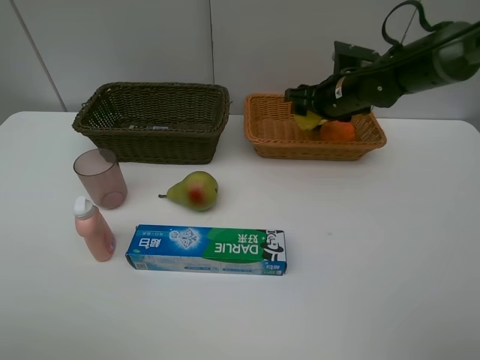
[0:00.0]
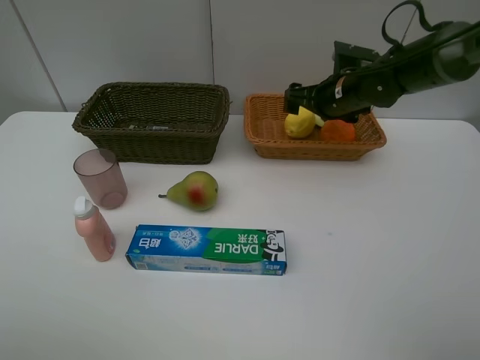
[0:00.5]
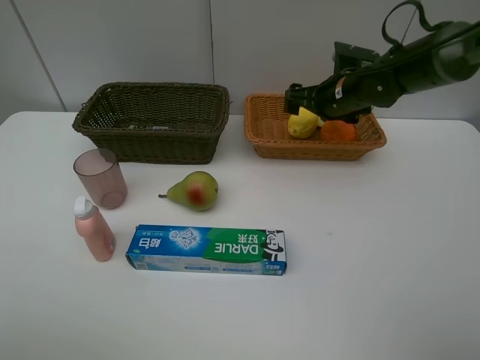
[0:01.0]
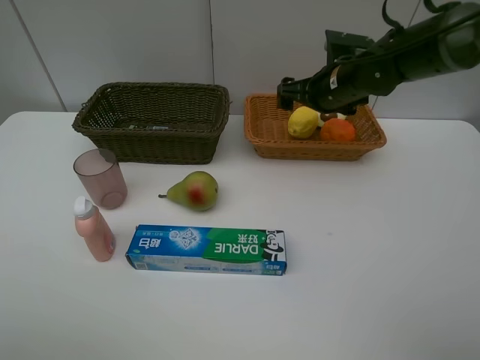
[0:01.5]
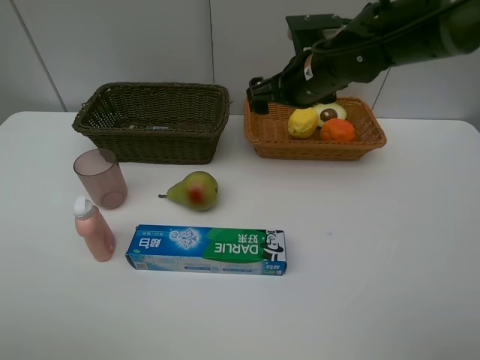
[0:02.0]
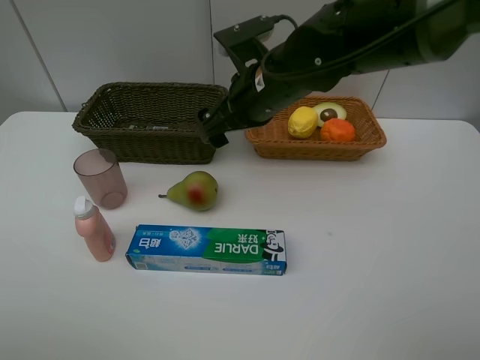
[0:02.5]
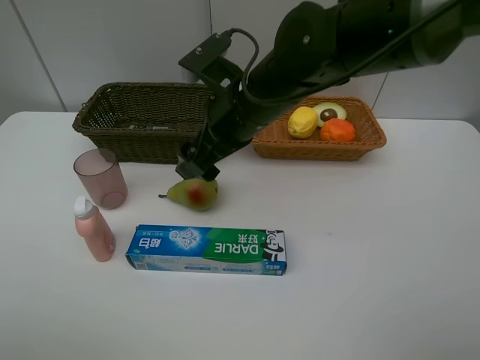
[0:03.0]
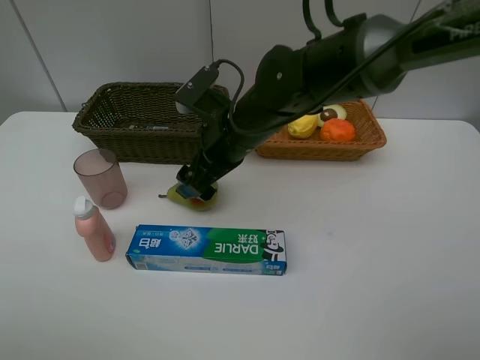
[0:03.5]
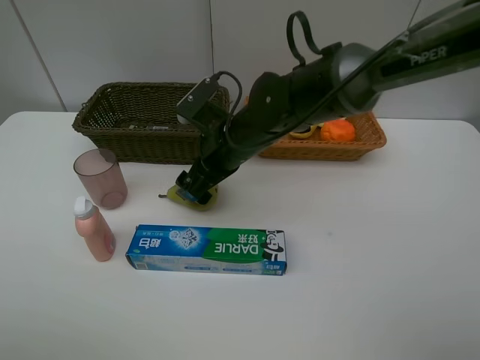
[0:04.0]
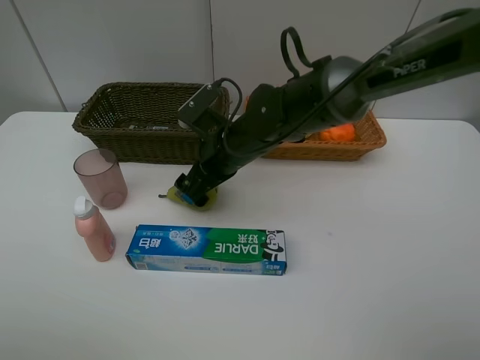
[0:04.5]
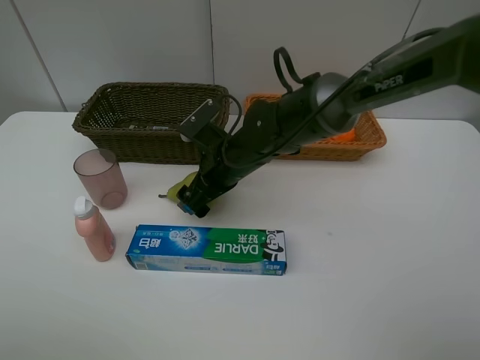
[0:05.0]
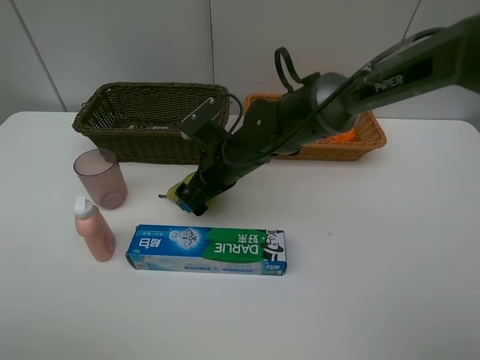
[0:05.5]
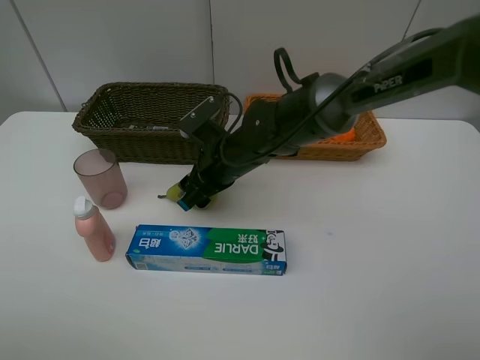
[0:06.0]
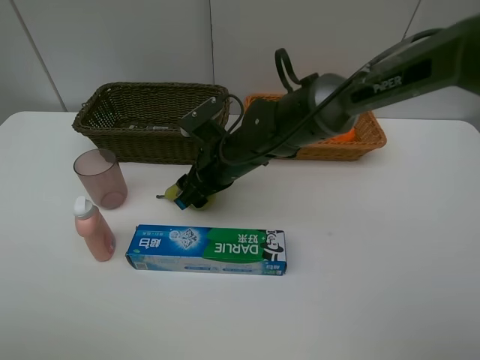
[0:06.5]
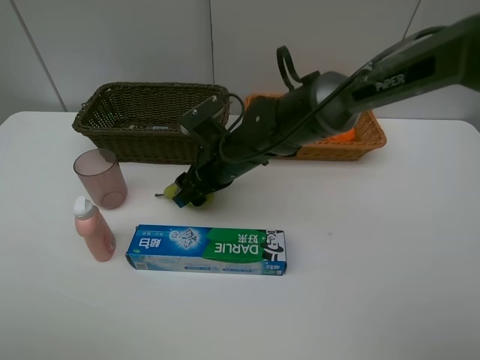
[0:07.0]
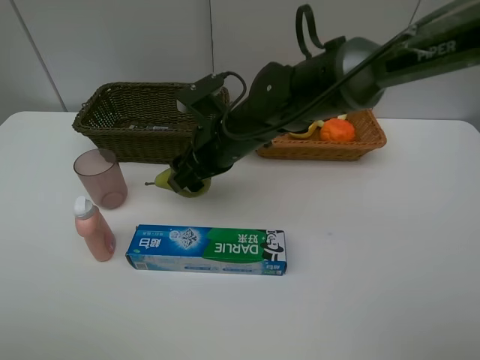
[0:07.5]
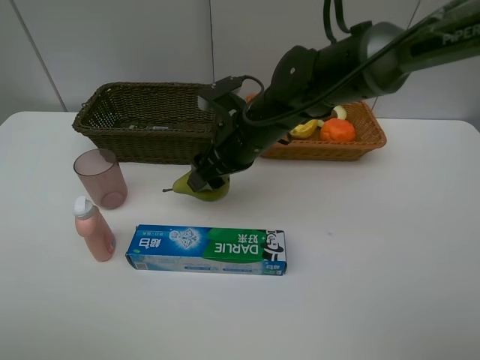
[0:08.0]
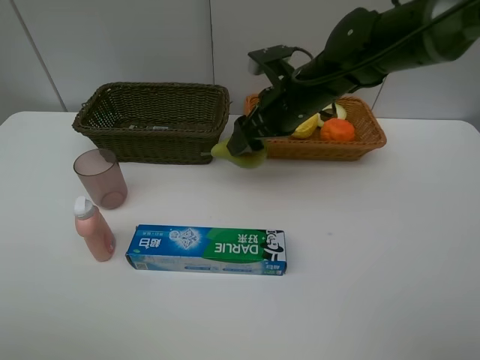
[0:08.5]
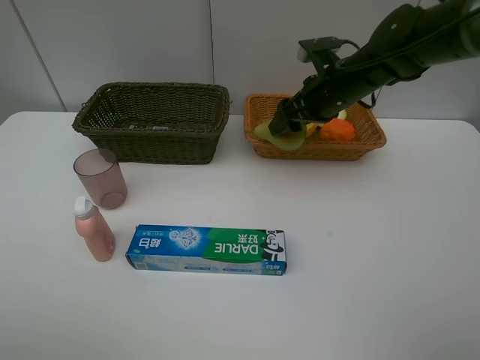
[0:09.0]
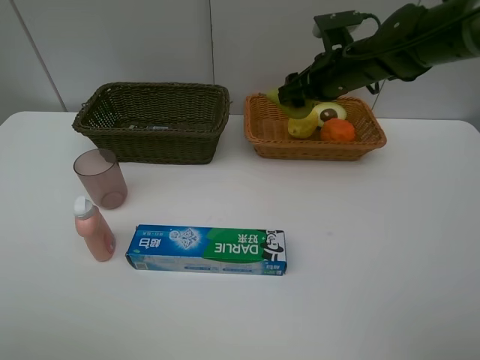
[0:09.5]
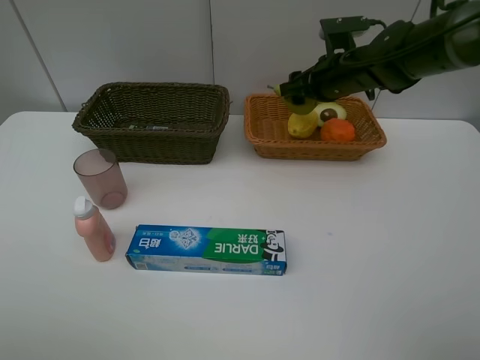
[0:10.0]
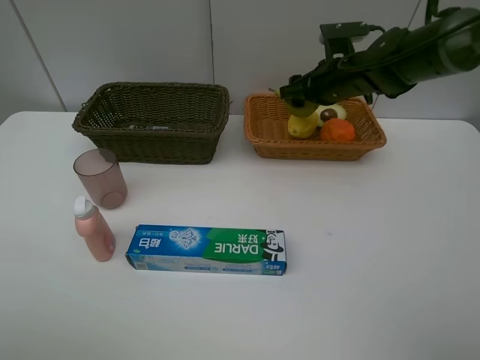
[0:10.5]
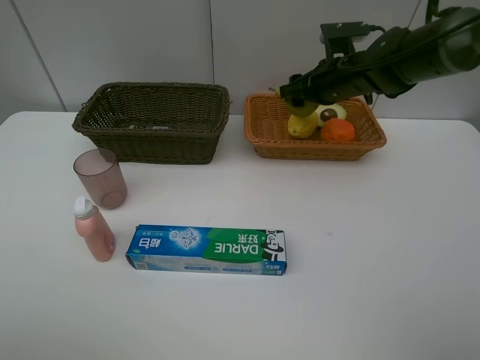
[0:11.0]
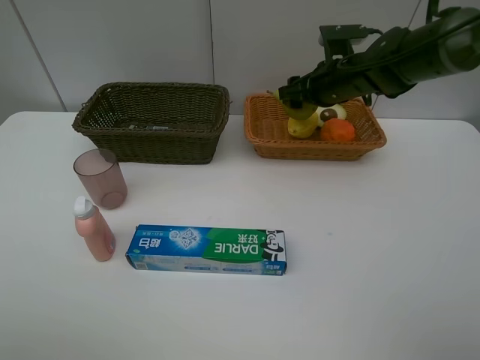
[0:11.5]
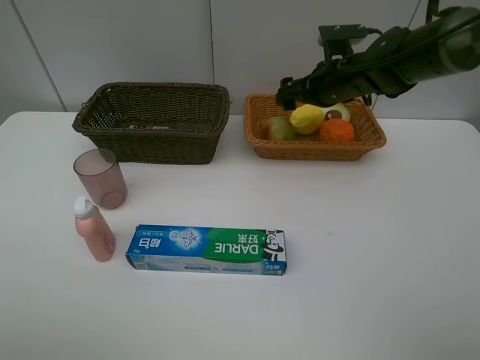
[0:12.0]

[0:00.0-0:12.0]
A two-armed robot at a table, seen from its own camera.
Task of the whole recording: Place multiple objects separately in different baskets.
Step, 0:01.5 to 0:07.0: Pick up the pear with right gripper.
0:00.0 to 0:02.0: The right gripper travels to the left, backward and upward by approximately 10 cm, and opens its fingers.
0:02.0 to 0:04.0: The right gripper moves to the left, downward and backward, roughly 15 cm.
0:04.0 to 0:06.0: The right gripper closes its fingers.
0:06.0 to 0:08.0: The right gripper heads upward, covering approximately 5 cm.
0:08.0 to 0:10.0: The right gripper goes roughly 15 cm to the right and forward.
0:10.0 to 0:12.0: The right gripper opens its fingers.

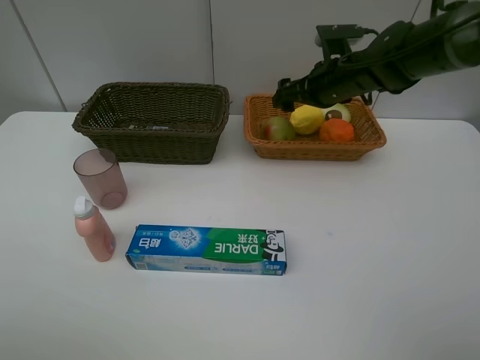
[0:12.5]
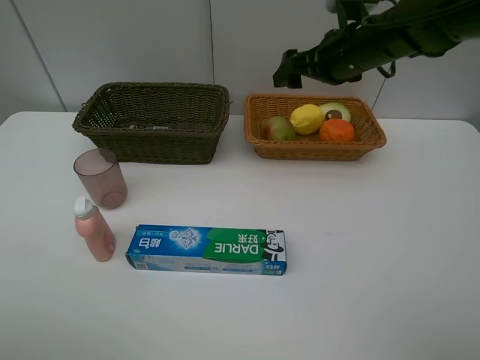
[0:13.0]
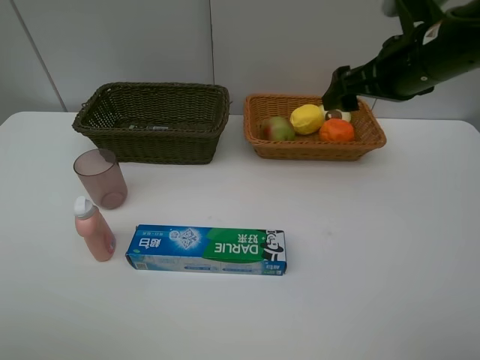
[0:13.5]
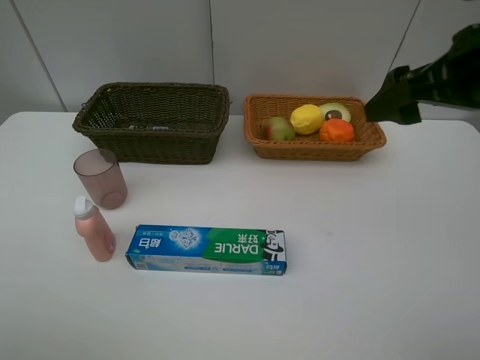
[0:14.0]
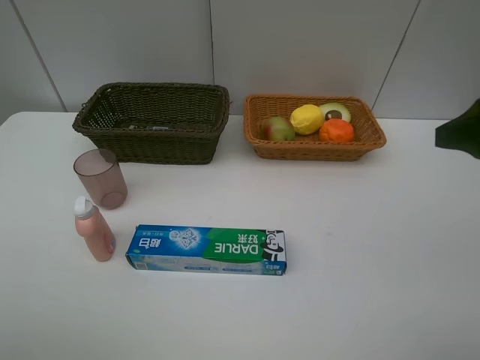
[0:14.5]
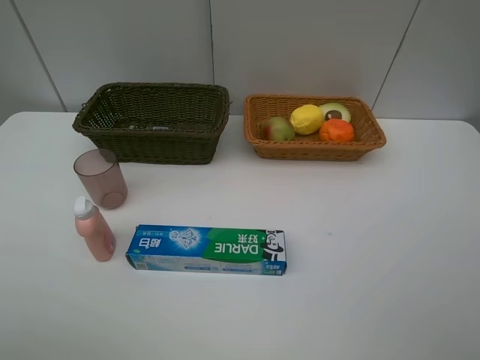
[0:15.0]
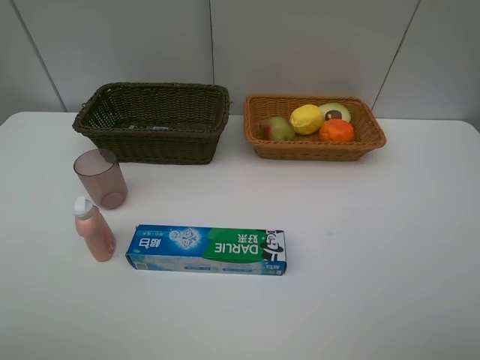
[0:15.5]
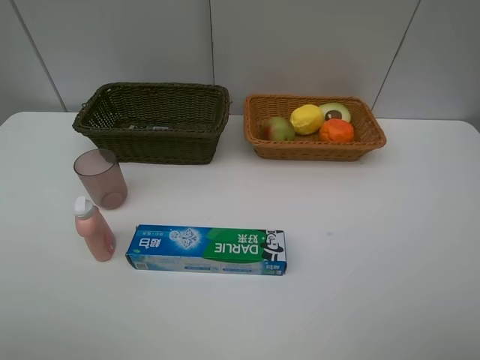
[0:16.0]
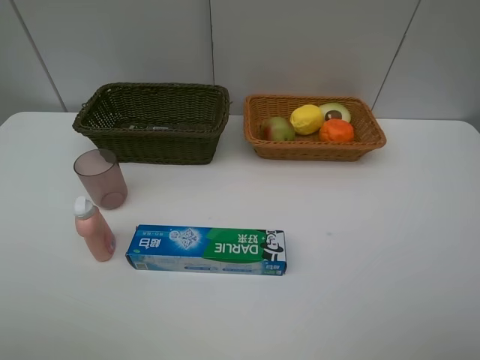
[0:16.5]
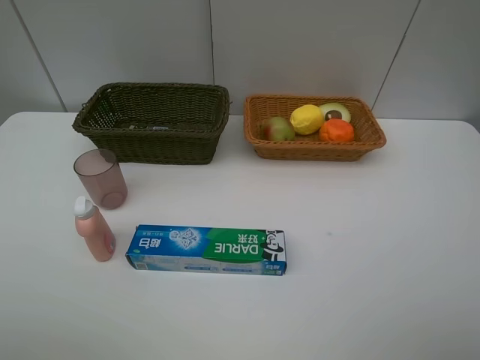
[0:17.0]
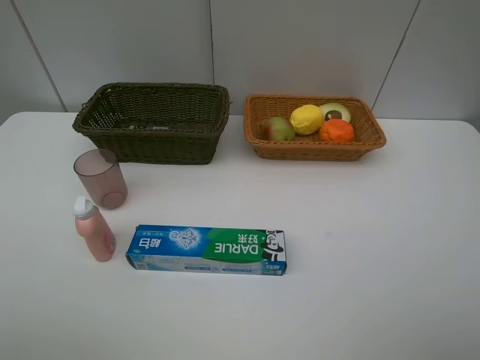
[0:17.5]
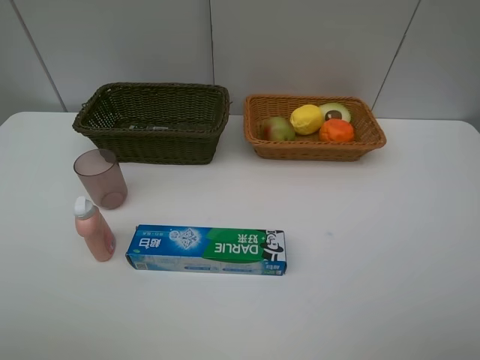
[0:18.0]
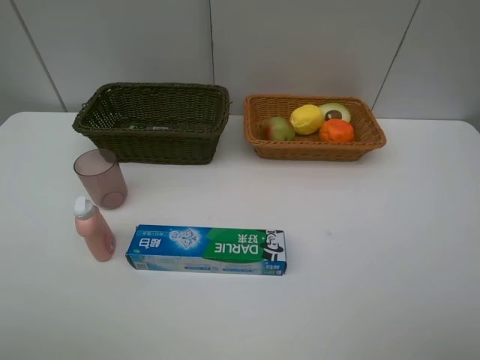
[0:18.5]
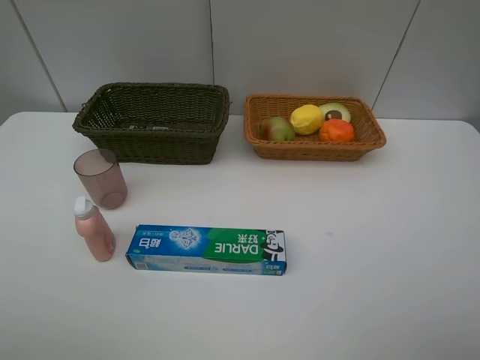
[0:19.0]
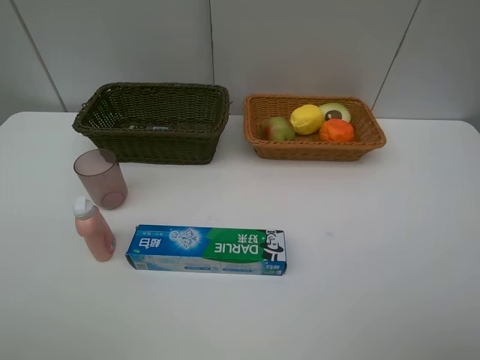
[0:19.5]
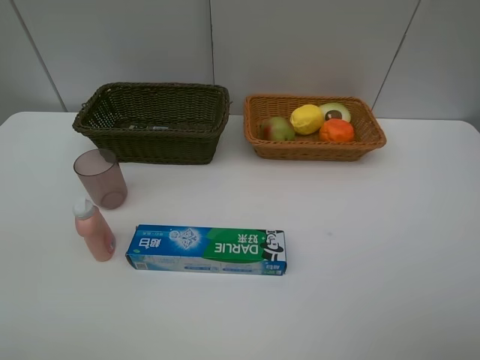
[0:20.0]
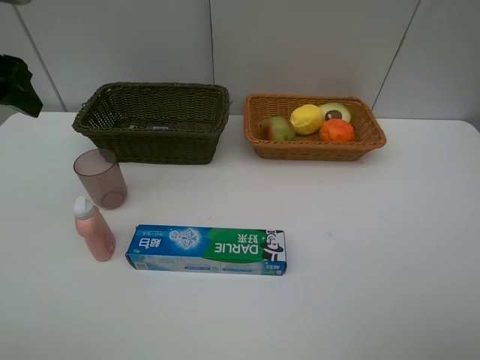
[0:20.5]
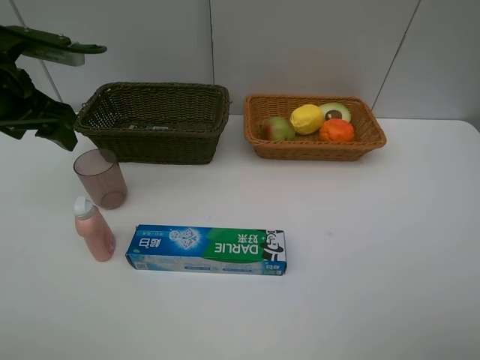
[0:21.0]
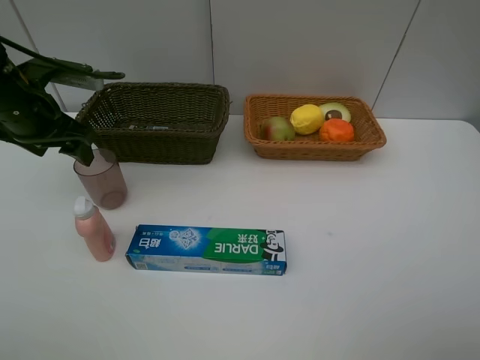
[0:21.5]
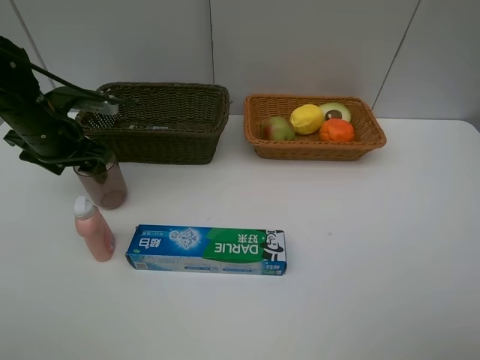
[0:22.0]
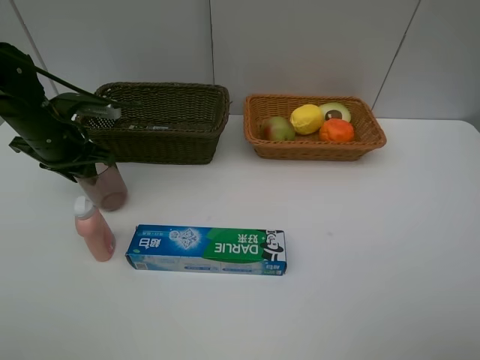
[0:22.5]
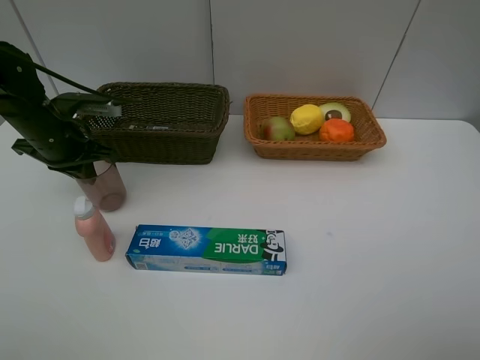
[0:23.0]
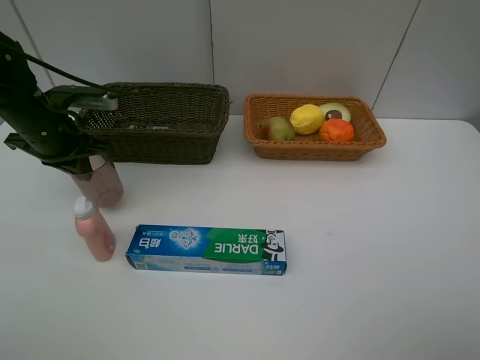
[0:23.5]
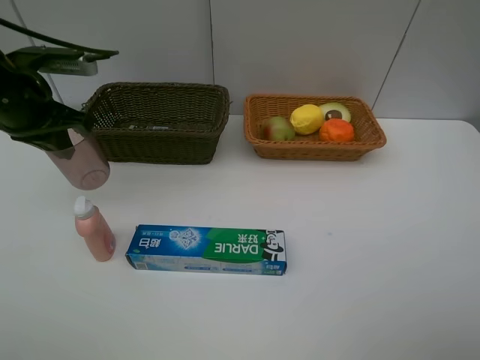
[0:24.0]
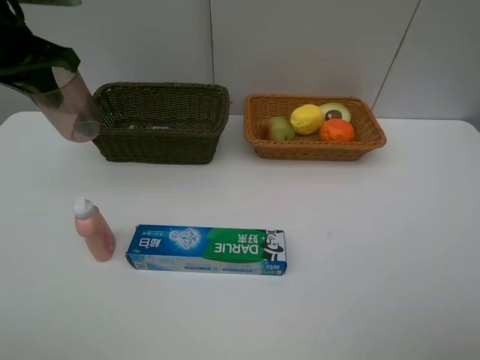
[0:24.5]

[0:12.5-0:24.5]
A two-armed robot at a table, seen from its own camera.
Task of the whole recording: Place multiple objects separately in different baskets.
Step, 0:12.5 to 0:23.5: Pick up the red cup with left gripper.
0:12.5 to 0:14.5: The right gripper moves backward, to the right and upward, approximately 30 cm.
0:14.5 to 0:16.5: The right gripper moves backward, some 15 cm.
0:16.5 to 0:18.5: Neither gripper changes place.
0:18.5 to 0:20.5: The left gripper travels forward by approximately 25 cm.
0:20.5 to 0:22.5: The left gripper is displaced downward and forward by some 15 cm, and closes up.
0:22.5 to 0:24.5: The left gripper goes some 15 cm upward.

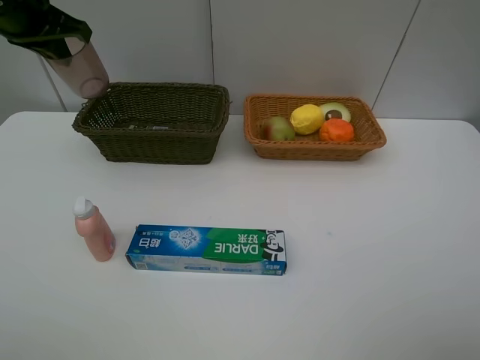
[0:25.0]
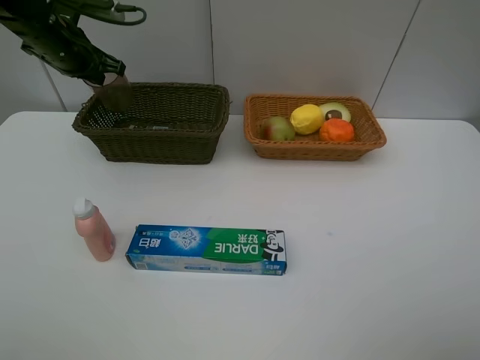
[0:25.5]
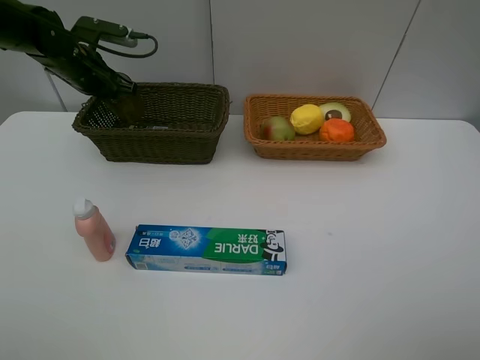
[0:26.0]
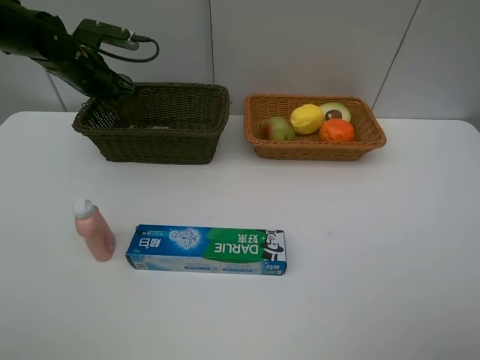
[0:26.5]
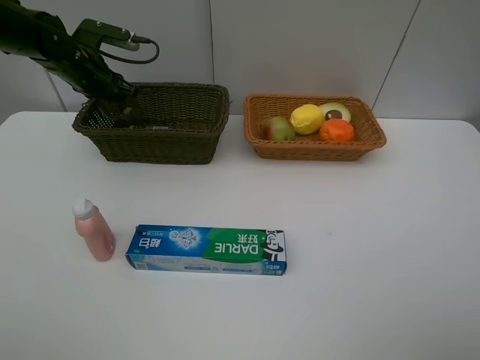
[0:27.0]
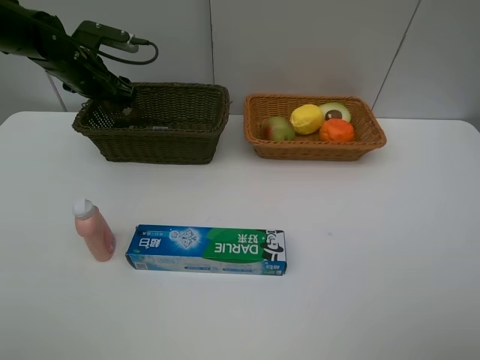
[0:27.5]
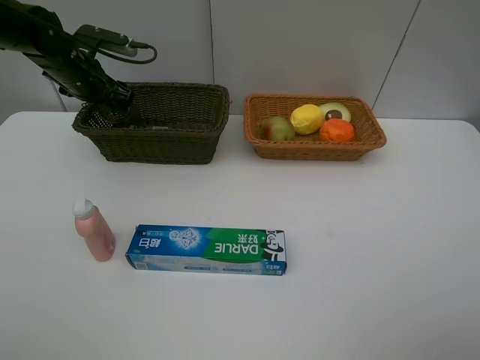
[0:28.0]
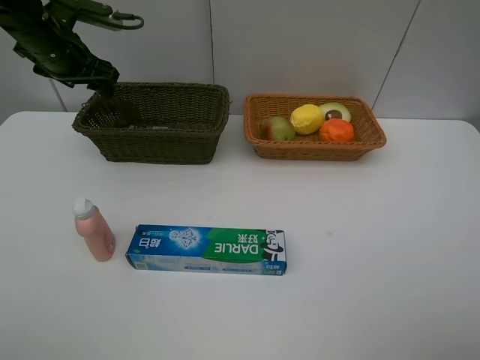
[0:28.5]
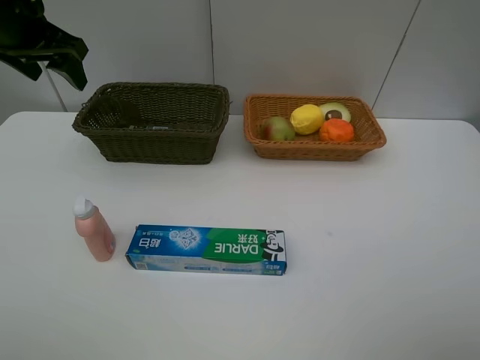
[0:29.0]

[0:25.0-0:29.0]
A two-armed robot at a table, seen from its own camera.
Task of the whole recording: Place multiple objects separately in different baskets.
Step, 0:25.0 to 0:28.0: Place the red cup in the dark basket with left gripper.
0:25.0 to 0:27.0: The left gripper goes about 15 cm downward and forward, and opens up.
0:27.0 to 0:29.0: The left gripper heads upward and backward, covering some 15 cm.
